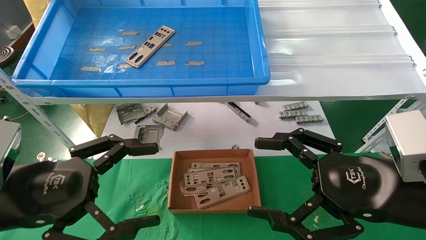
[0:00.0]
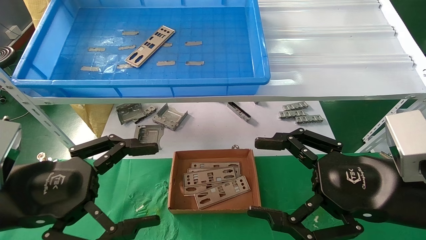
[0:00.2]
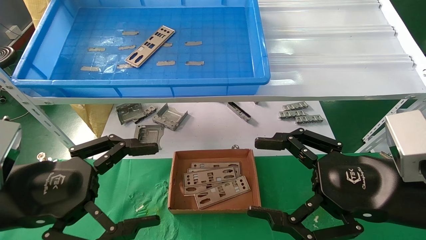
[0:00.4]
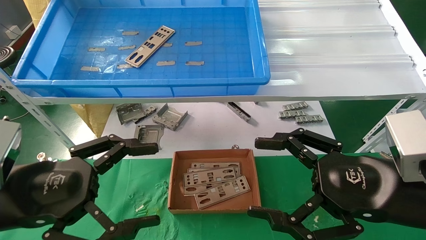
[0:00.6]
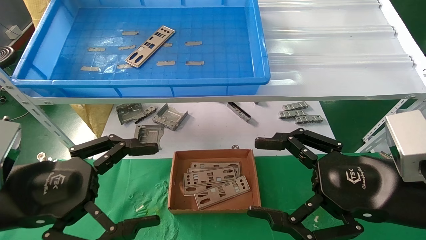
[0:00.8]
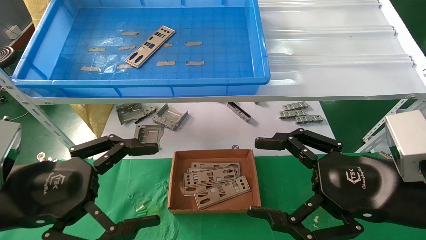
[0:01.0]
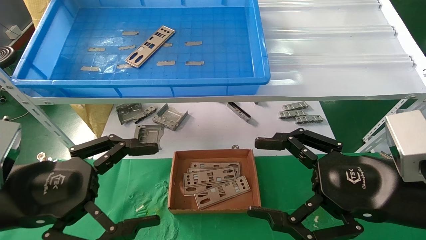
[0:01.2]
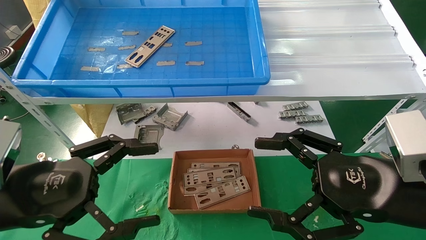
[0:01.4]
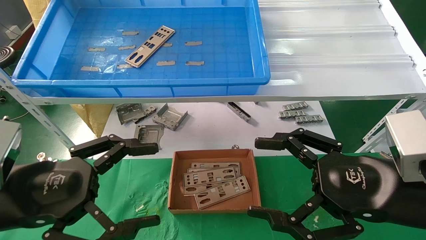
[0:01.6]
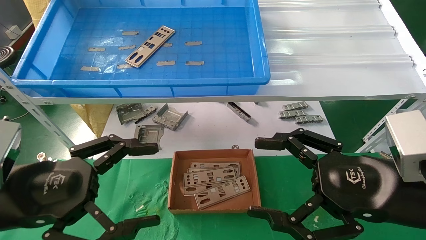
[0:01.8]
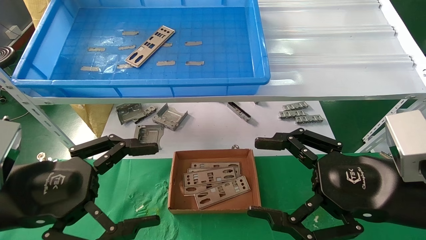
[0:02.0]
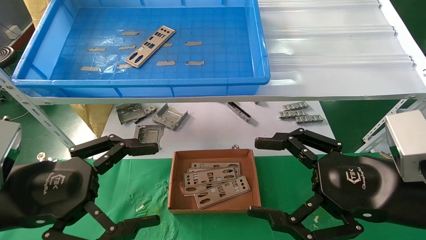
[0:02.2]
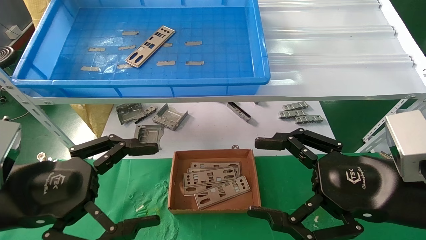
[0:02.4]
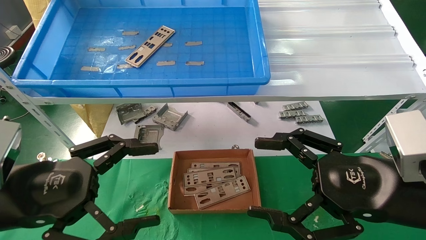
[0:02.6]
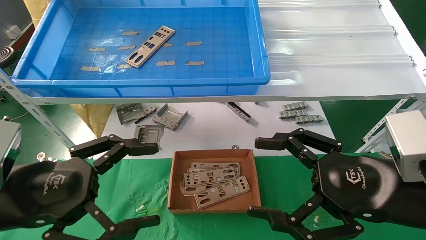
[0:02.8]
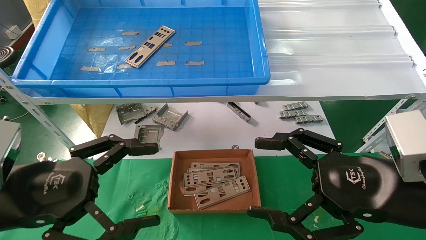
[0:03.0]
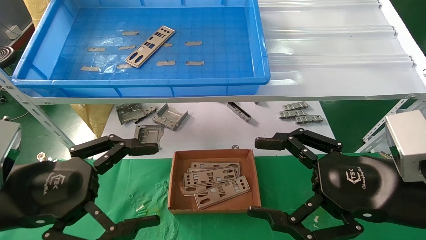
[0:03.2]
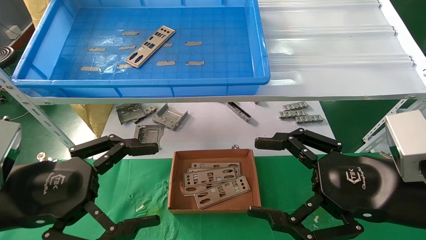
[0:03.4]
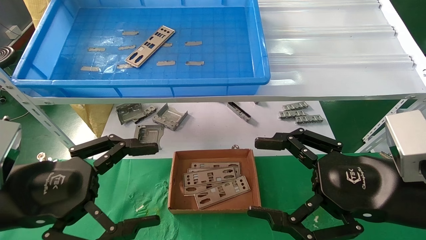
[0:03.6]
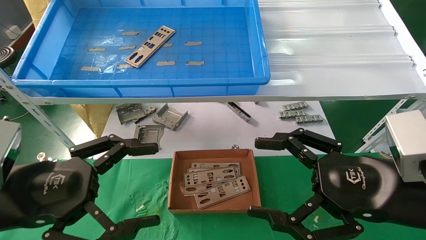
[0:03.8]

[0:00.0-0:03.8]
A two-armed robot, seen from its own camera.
Task of the whole recording: pick up the parts on the tray and put them in the cardboard box.
0:00.0 to 0:03.8: Both grippers stay about where they are.
